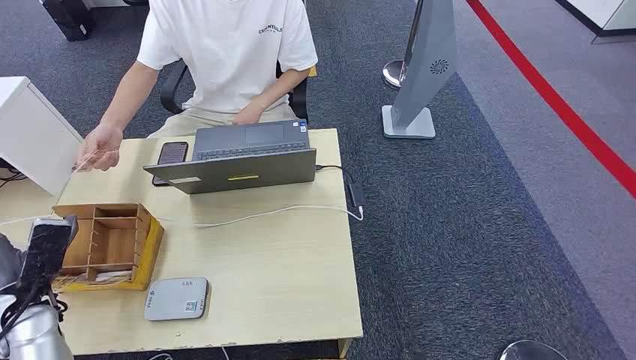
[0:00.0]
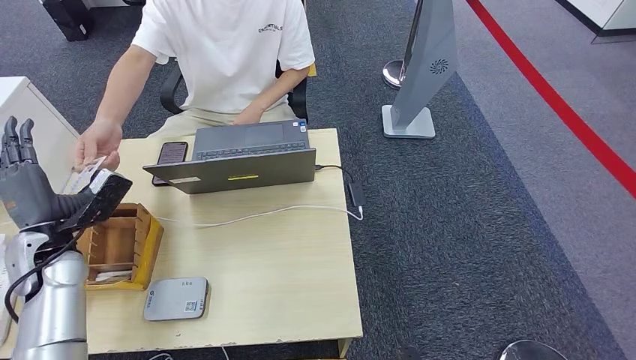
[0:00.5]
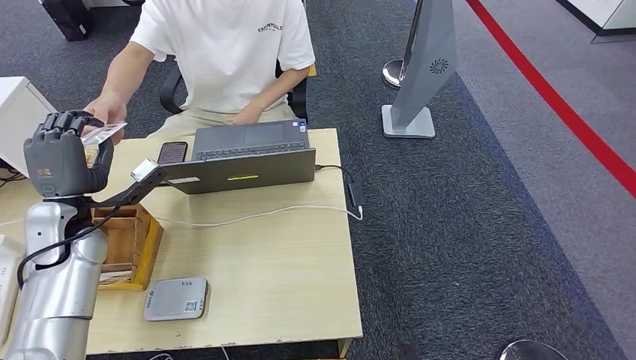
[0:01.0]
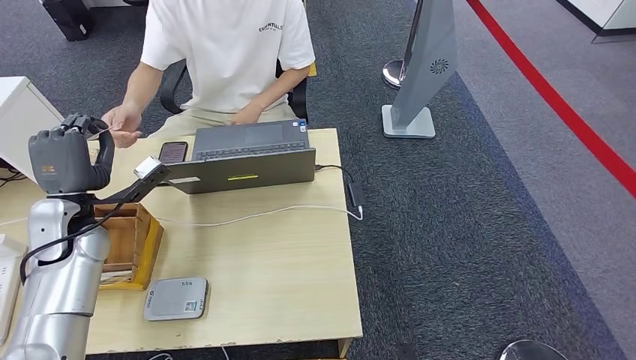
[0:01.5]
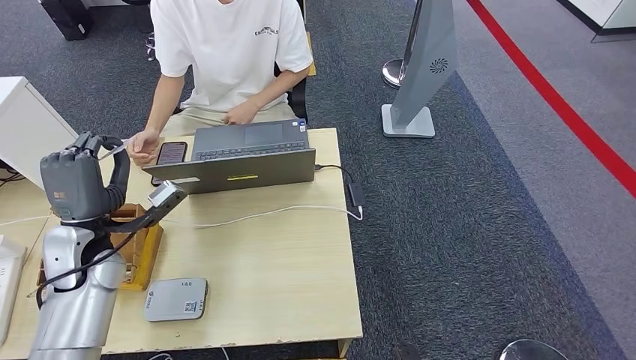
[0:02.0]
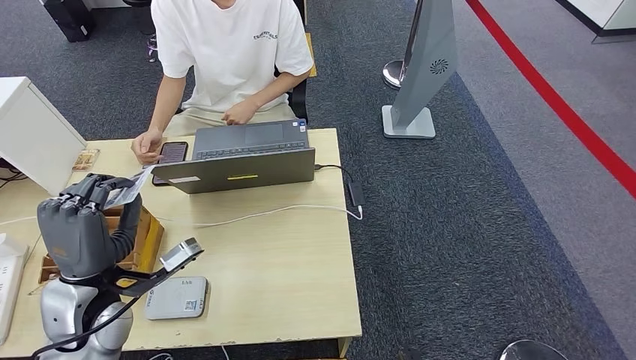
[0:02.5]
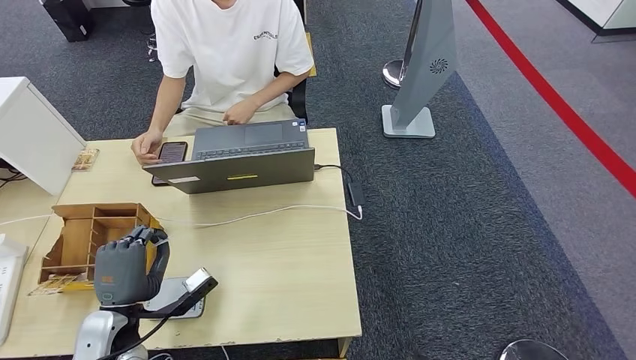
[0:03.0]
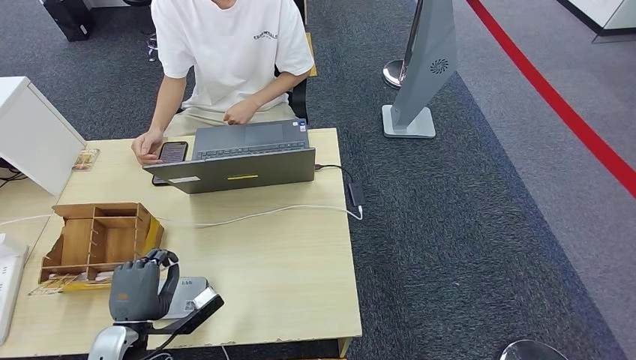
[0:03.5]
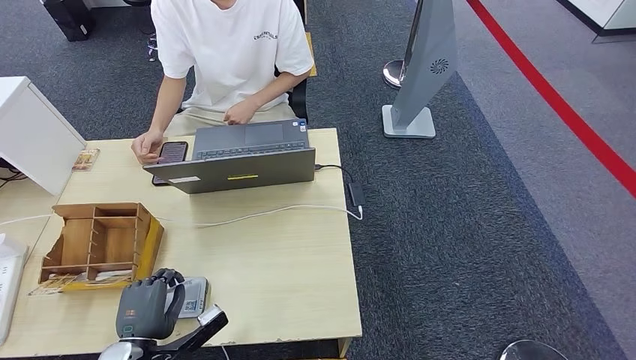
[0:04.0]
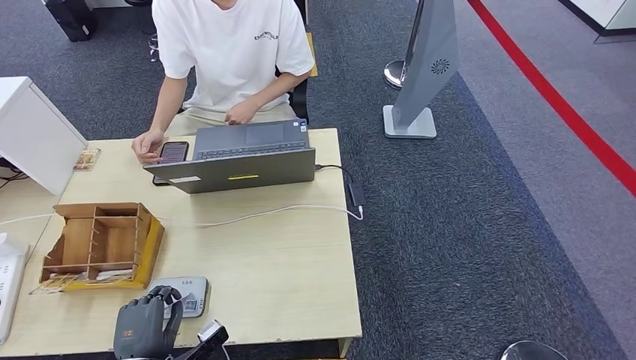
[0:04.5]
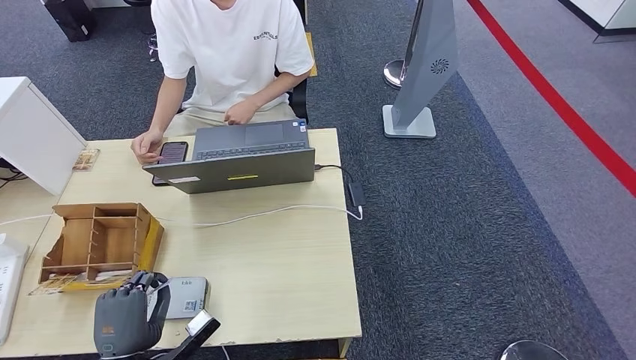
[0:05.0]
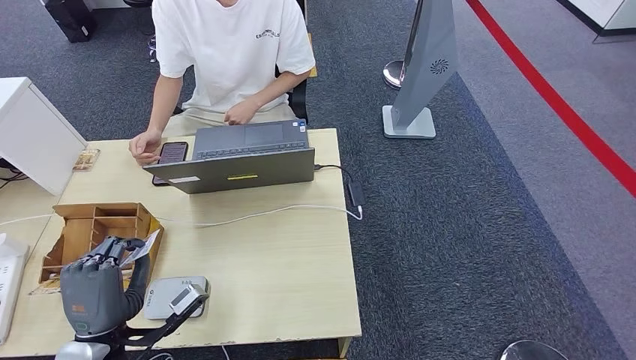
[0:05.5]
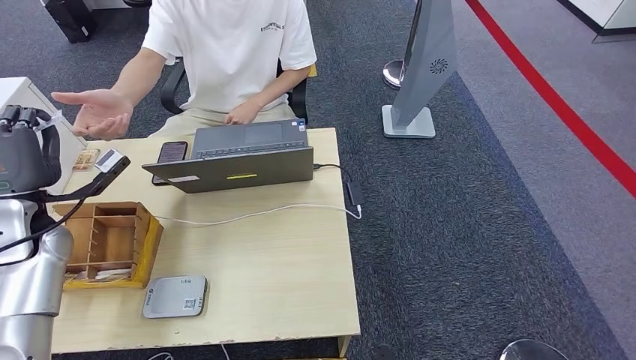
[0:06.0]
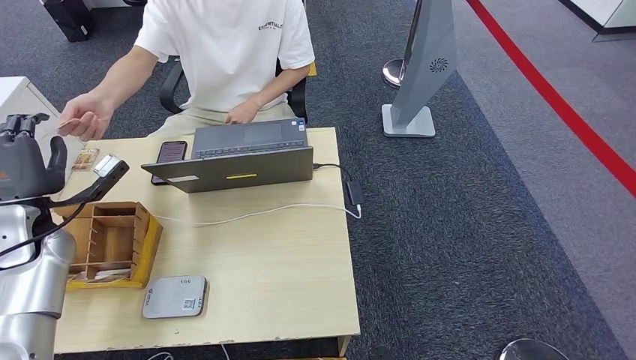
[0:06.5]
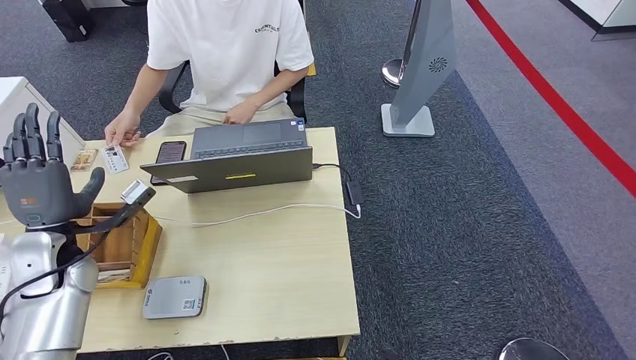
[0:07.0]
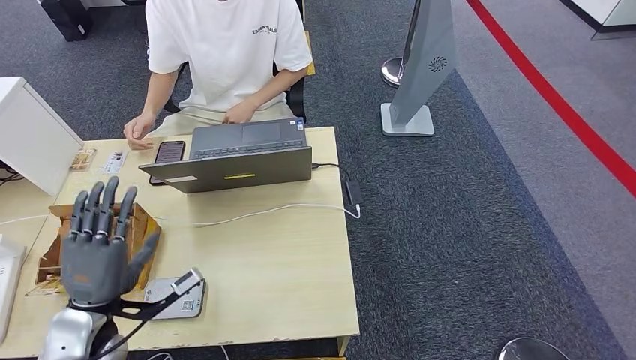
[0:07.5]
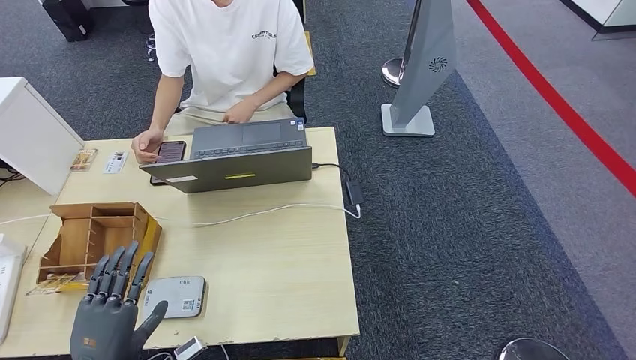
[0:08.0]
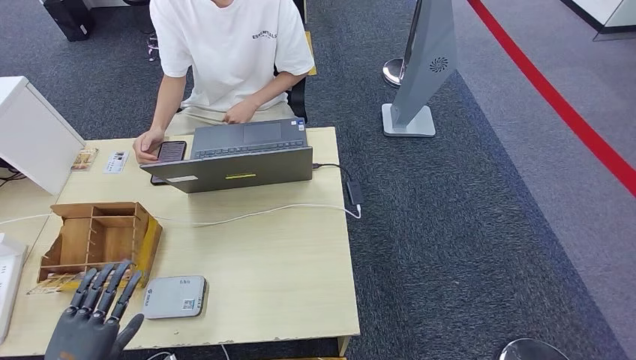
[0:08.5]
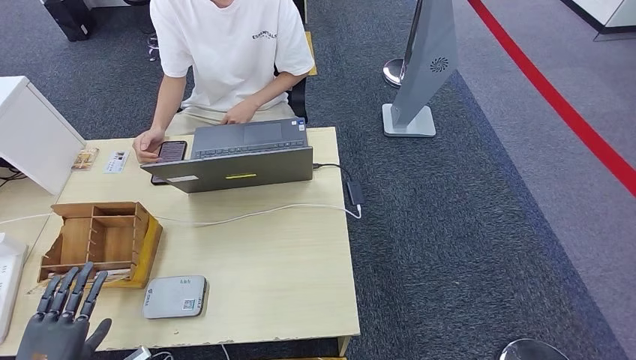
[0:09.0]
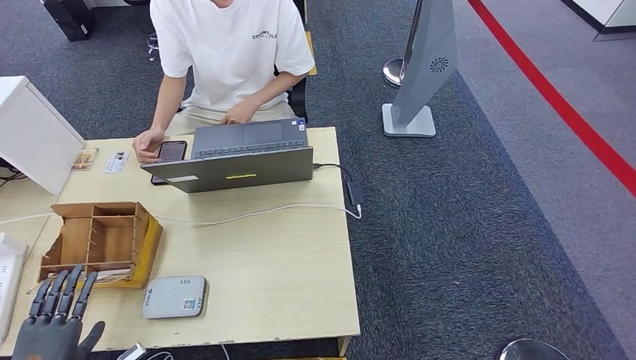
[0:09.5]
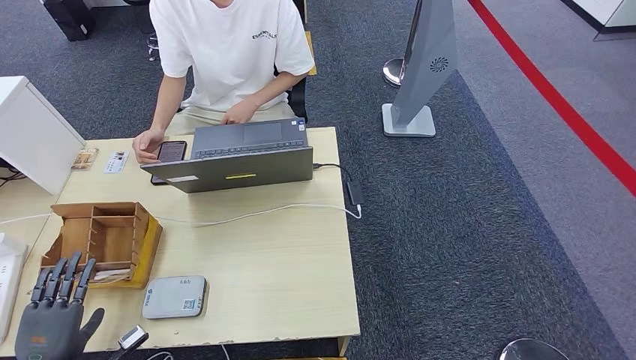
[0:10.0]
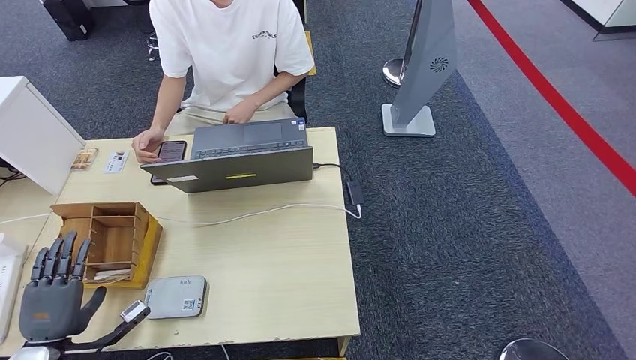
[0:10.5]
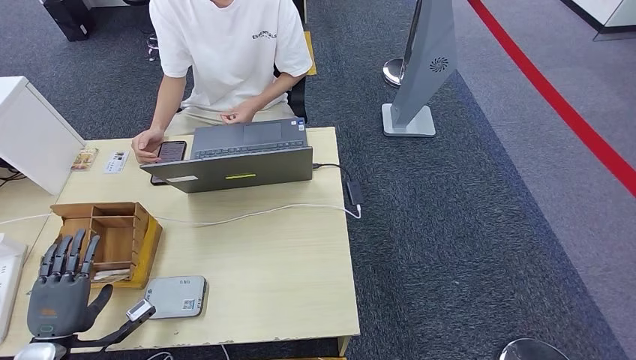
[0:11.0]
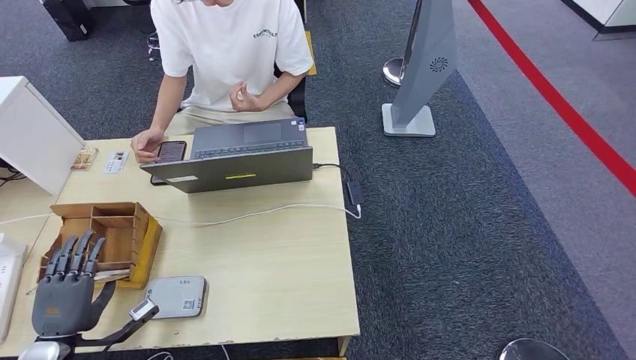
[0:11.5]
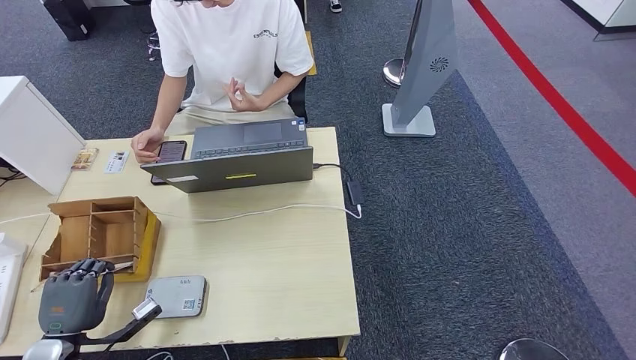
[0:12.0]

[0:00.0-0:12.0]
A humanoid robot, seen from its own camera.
Step, 0:00.0 to 0:02.0: Take the ID card from the person's hand.
Step, 0:02.5 to 0:04.5: Place the ID card on the card reader.
Step, 0:05.0 to 0:07.5: Hand the ID card to the person.
0:02.0 to 0:04.0: The left hand heads backward and downward, covering roughly 20 cm.
0:04.0 to 0:06.0: The left hand moves forward, upward and to the left, some 30 cm, while the right hand changes place by some 5 cm.
0:06.0 to 0:08.0: The left hand is displaced backward, downward and to the right by roughly 30 cm.
0:08.0 to 0:10.0: The left hand moves to the left and downward, some 15 cm.
0:10.0 to 0:12.0: There are only small adjustments of the hands.

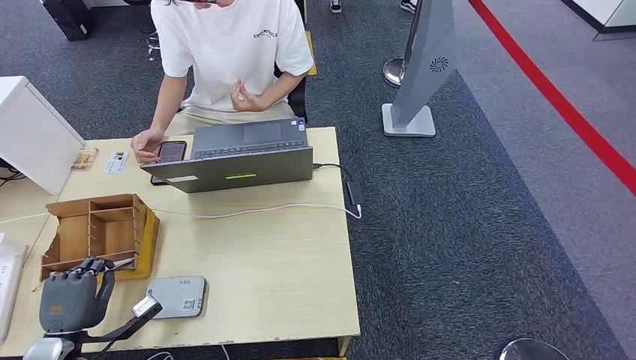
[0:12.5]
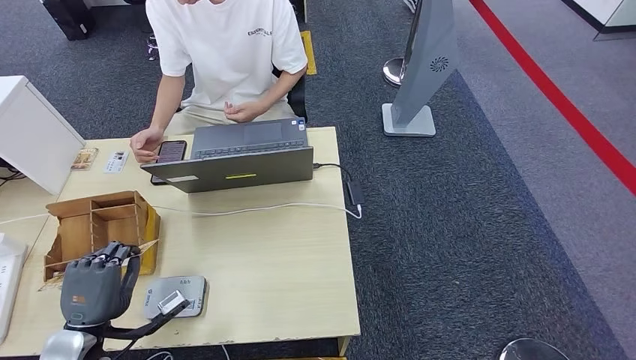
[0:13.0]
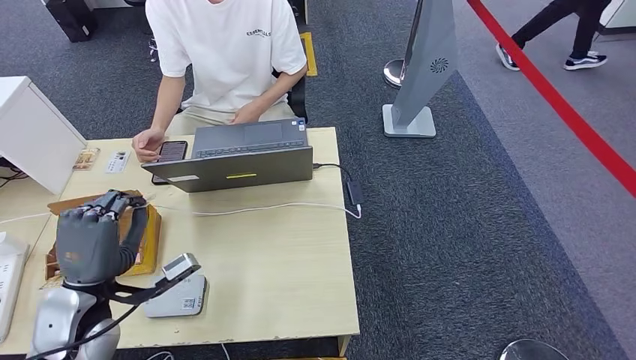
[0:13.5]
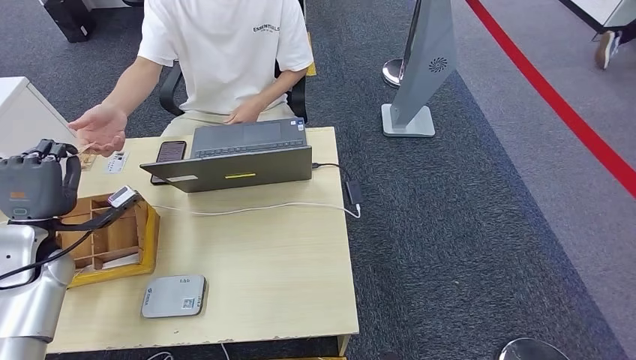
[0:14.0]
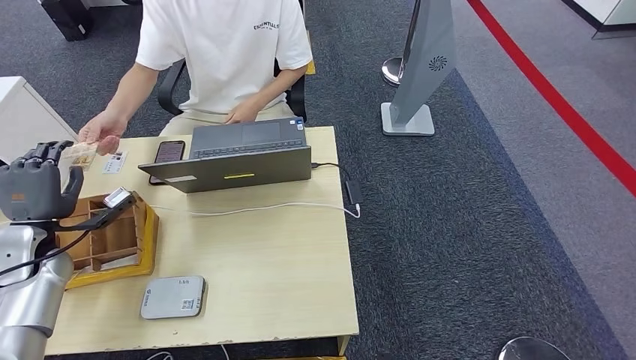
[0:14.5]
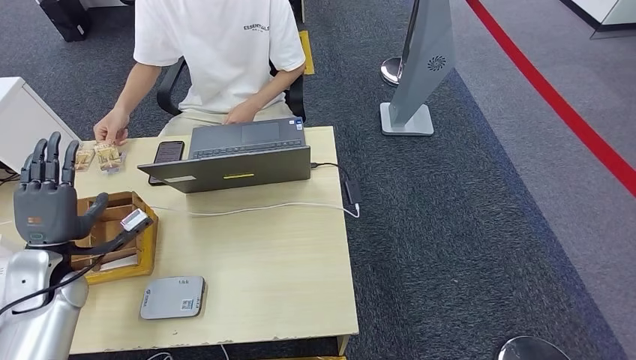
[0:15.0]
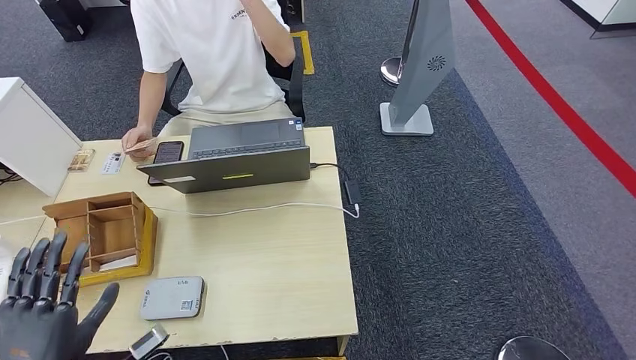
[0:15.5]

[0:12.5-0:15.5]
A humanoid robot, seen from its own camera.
Step, 0:14.0 to 0:15.5: Hand the room key to the person.
0:12.5 to 0:14.0: The left hand travels upward and forward by approximately 20 cm.
0:14.0 to 0:15.5: The left hand is displaced backward by about 20 cm.
